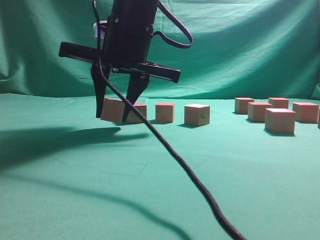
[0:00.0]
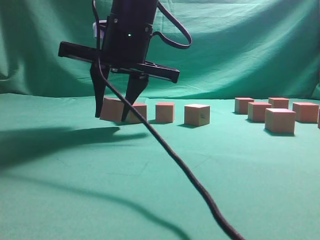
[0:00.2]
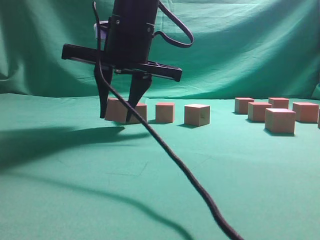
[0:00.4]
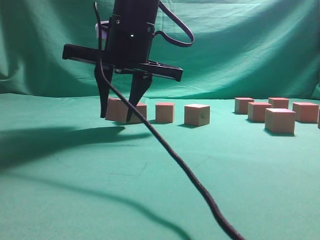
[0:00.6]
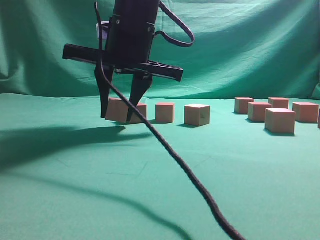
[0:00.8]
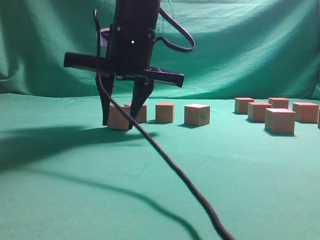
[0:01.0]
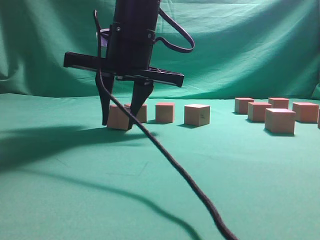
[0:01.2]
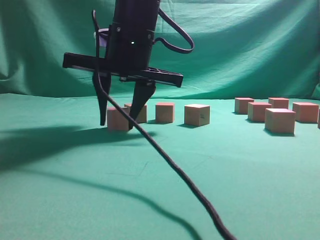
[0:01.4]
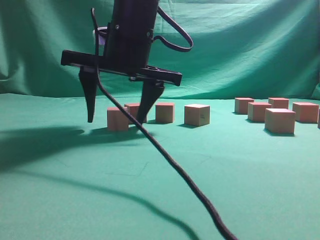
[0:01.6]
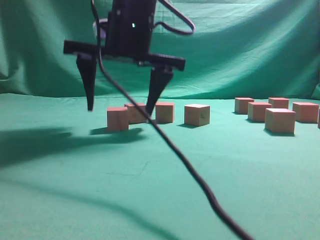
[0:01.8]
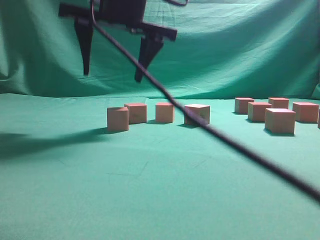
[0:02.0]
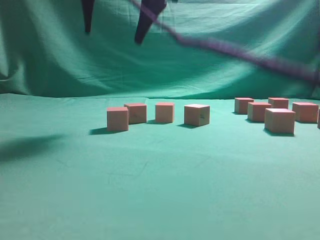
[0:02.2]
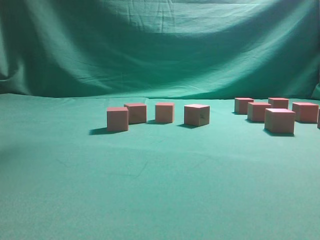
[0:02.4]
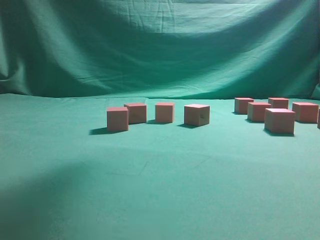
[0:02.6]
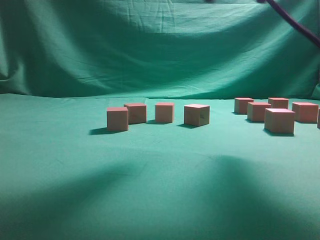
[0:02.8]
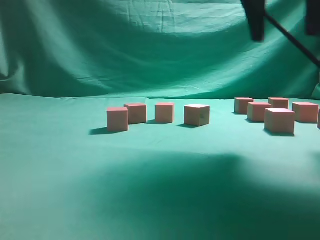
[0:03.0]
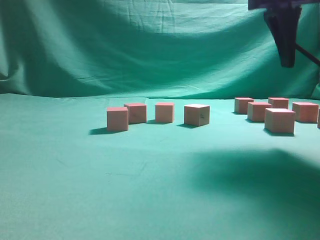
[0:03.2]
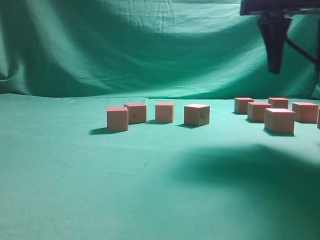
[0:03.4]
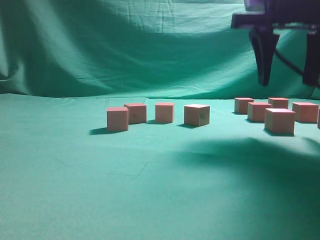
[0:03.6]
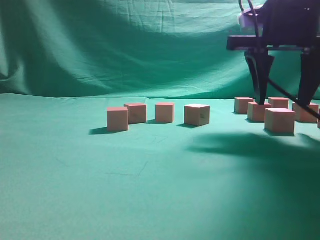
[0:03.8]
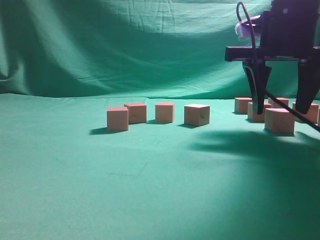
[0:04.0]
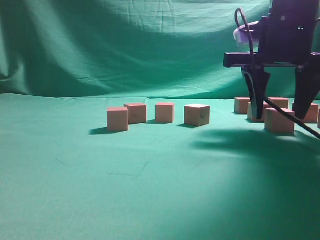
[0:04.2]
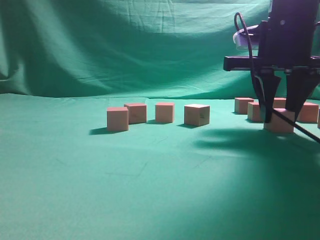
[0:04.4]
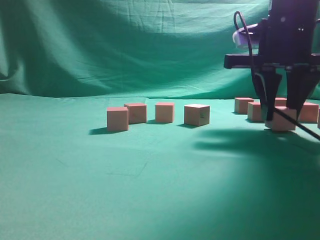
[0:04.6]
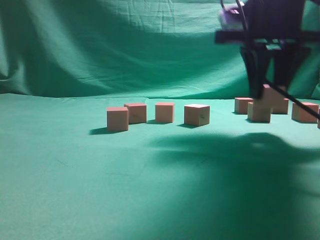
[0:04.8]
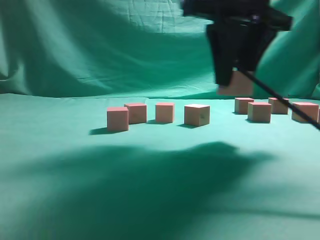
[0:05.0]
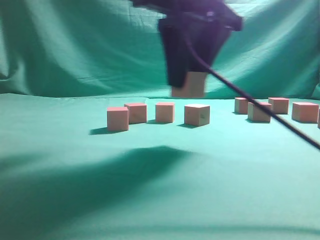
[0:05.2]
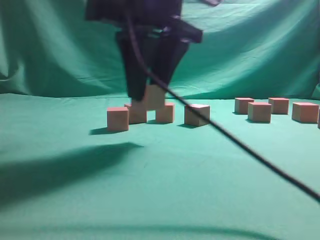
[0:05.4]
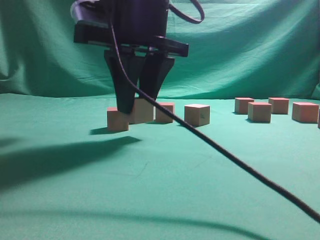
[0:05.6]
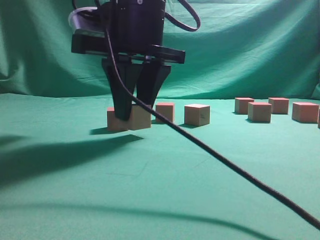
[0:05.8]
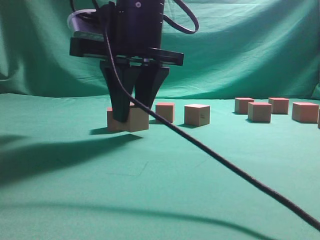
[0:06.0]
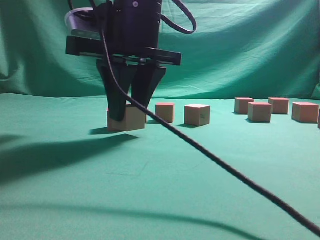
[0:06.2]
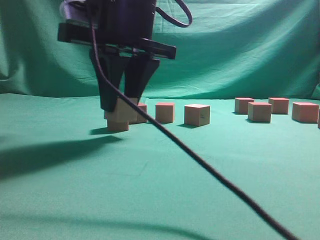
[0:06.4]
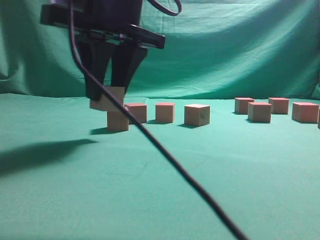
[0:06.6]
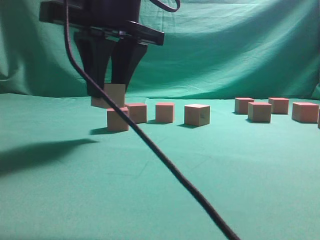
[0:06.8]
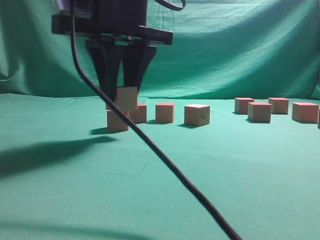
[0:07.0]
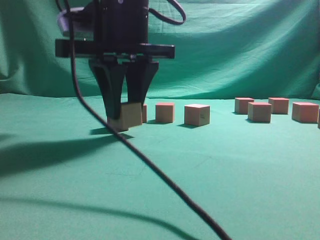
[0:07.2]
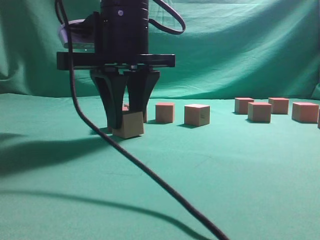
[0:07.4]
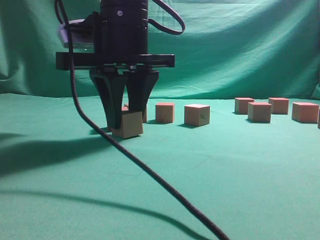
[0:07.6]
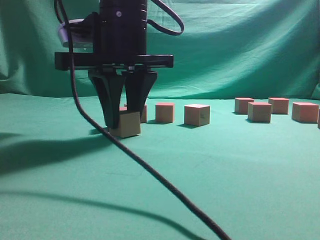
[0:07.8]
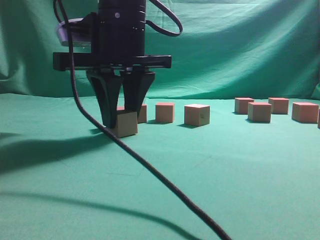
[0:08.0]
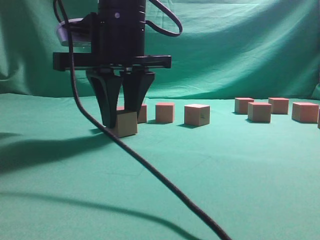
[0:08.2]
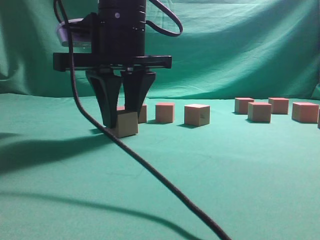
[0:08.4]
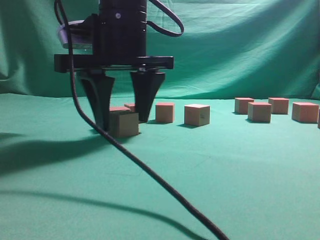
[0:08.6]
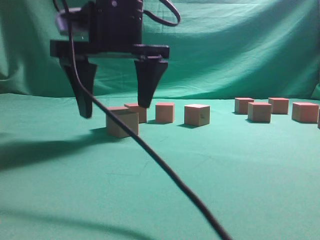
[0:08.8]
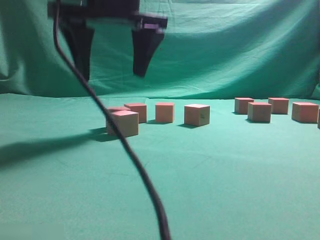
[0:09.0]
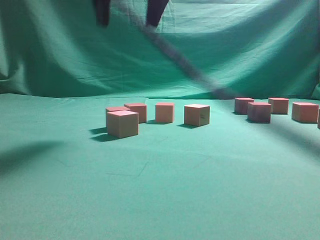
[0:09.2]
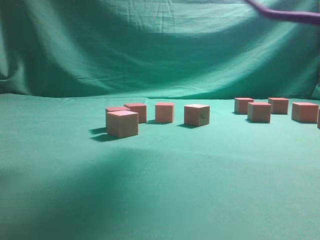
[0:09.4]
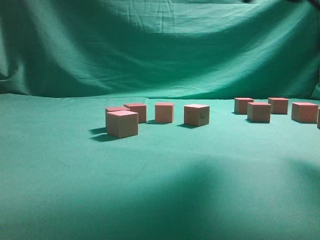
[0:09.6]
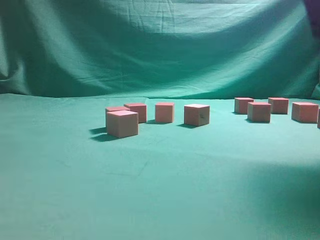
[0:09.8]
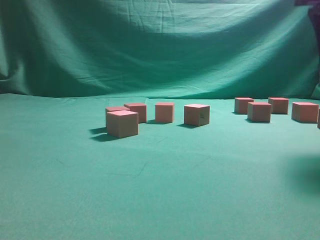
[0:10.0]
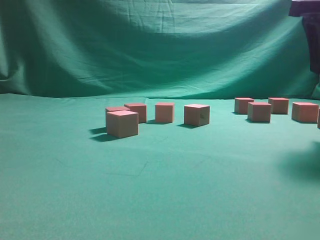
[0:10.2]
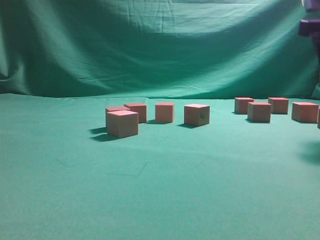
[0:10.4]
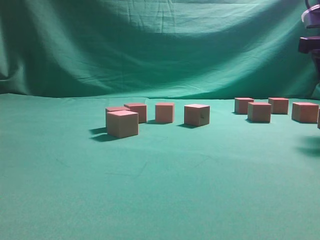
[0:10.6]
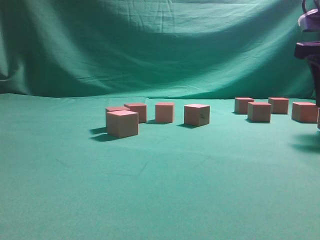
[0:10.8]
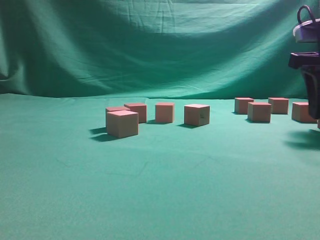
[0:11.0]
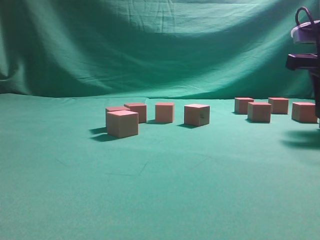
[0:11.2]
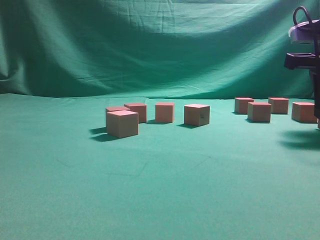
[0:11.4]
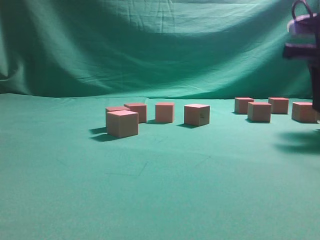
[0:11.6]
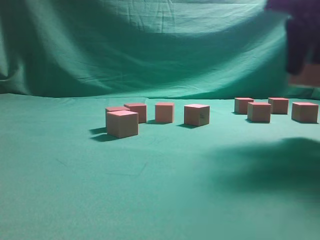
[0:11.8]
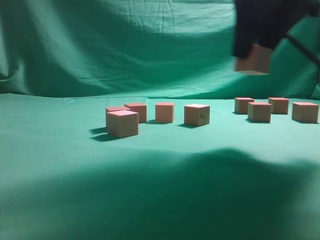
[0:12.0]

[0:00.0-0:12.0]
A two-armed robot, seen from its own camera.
Task of the whole recording: pick up the multiple cubes in two columns one by one and place them in another position on the table.
Step, 0:00.0 to 0:02.0: Place the block at the correct position to assemble the letter S.
Step, 0:02.2 to 0:04.6: Pick up the block on the table.
Step, 0:04.8 to 0:09.0: Place the block at the correct position to assemble the letter S.
Step, 0:09.2 to 0:11.6: Pick up the block on the table.
0:00.0 to 0:01.6: The right gripper opens its fingers.
0:01.6 to 0:03.0: The right gripper is displaced to the right and upward by approximately 20 cm.
0:03.0 to 0:04.4: The right gripper travels downward by about 10 cm, and closes its fingers.
0:04.4 to 0:06.0: The right gripper heads to the left, covering approximately 20 cm.
0:06.0 to 0:07.6: There are only small adjustments of the grippers.
0:07.6 to 0:09.0: The right gripper is displaced upward by about 5 cm, and opens its fingers.
0:09.0 to 0:10.4: The right gripper travels to the right by roughly 30 cm.
0:10.4 to 0:12.0: The right gripper heads to the left, covering approximately 10 cm, and closes up.

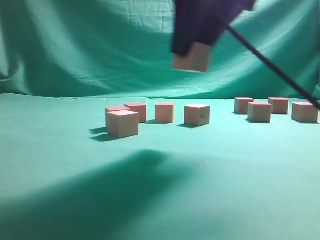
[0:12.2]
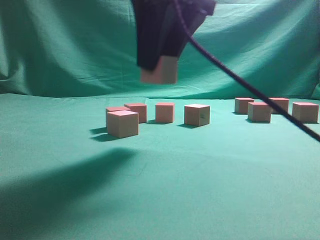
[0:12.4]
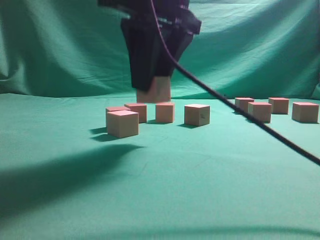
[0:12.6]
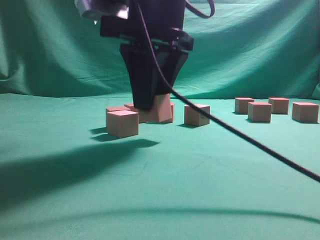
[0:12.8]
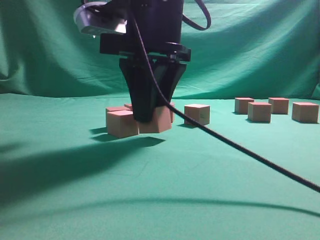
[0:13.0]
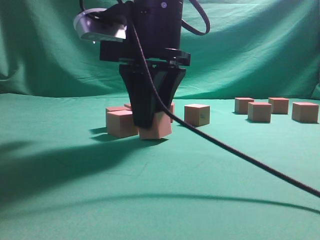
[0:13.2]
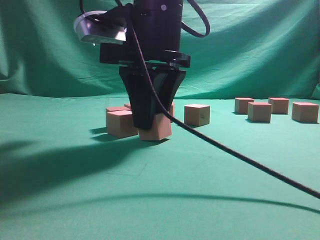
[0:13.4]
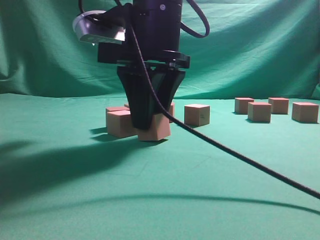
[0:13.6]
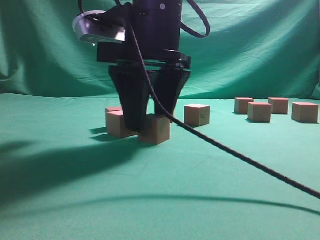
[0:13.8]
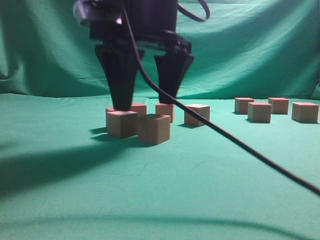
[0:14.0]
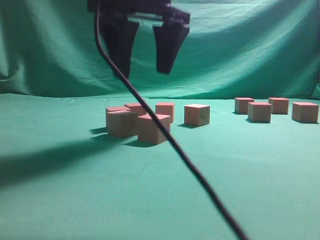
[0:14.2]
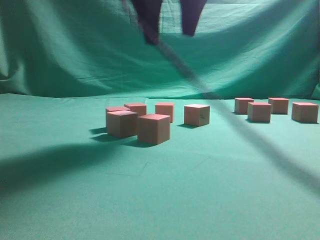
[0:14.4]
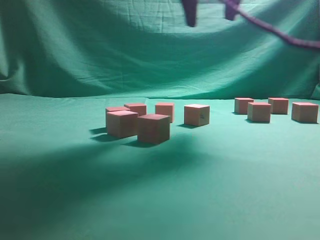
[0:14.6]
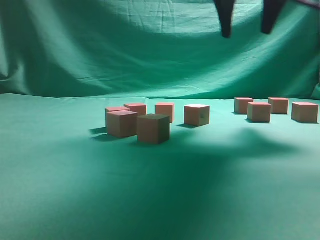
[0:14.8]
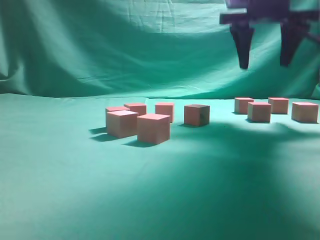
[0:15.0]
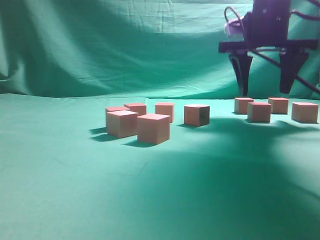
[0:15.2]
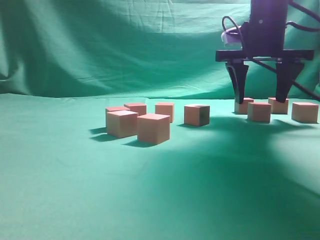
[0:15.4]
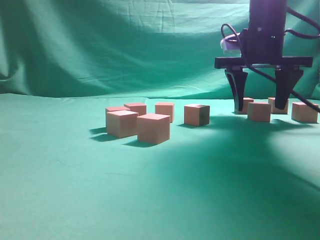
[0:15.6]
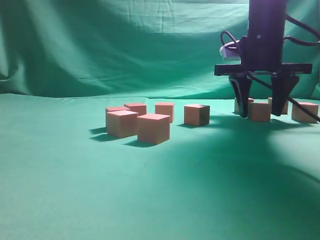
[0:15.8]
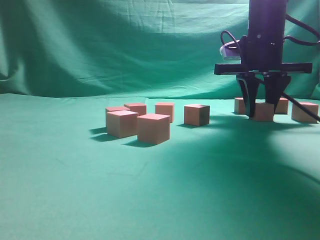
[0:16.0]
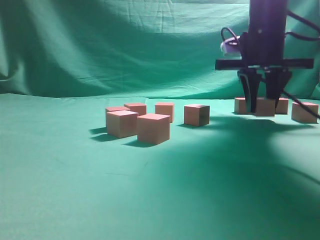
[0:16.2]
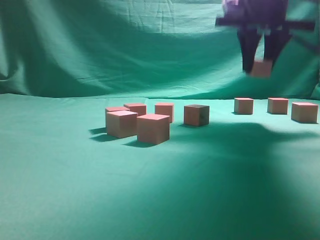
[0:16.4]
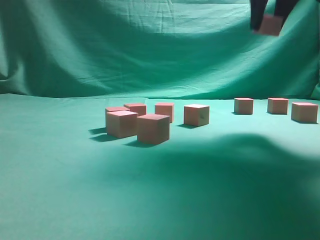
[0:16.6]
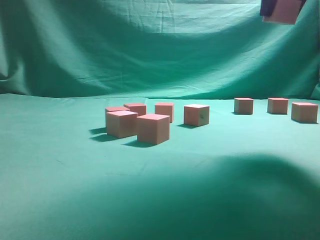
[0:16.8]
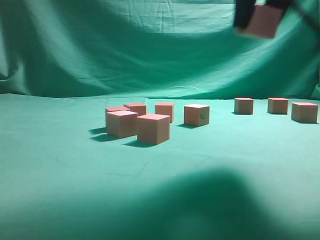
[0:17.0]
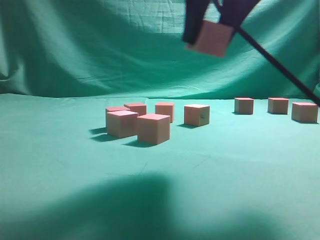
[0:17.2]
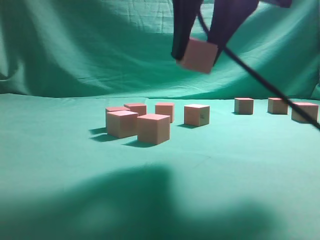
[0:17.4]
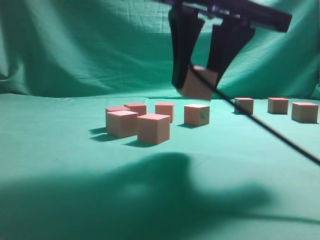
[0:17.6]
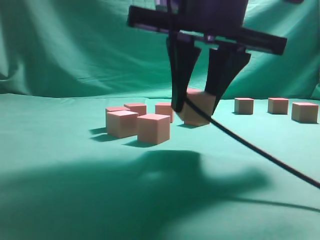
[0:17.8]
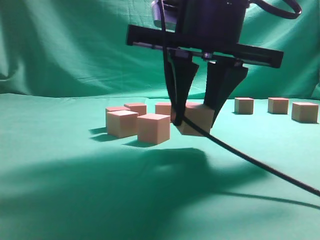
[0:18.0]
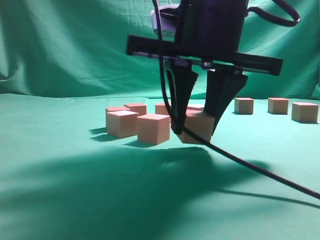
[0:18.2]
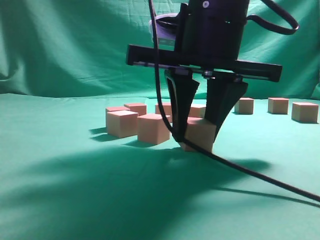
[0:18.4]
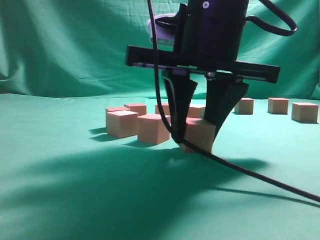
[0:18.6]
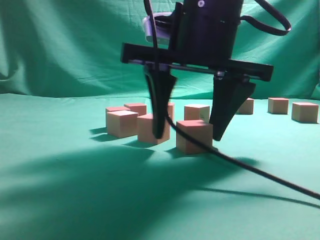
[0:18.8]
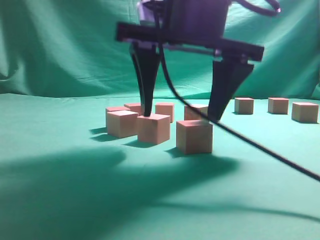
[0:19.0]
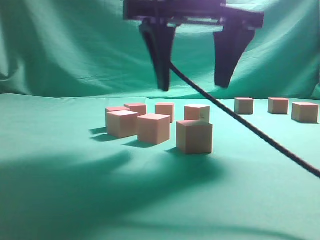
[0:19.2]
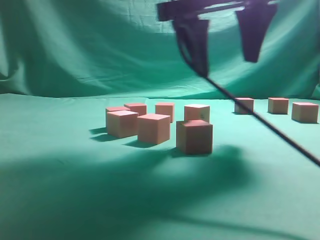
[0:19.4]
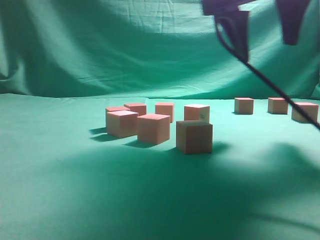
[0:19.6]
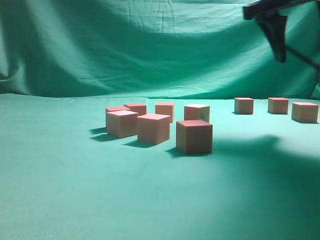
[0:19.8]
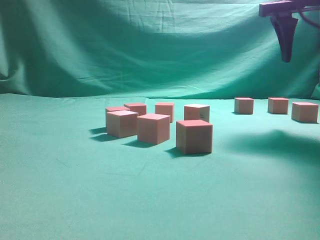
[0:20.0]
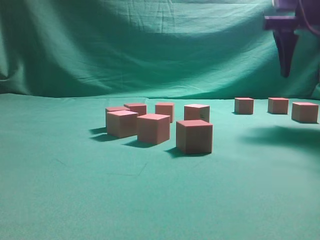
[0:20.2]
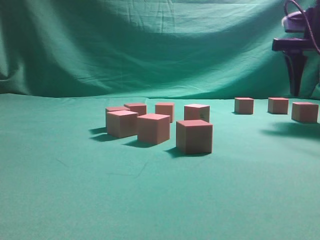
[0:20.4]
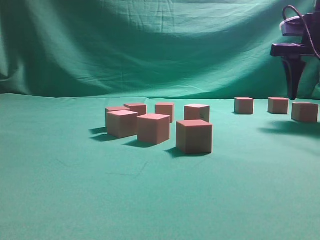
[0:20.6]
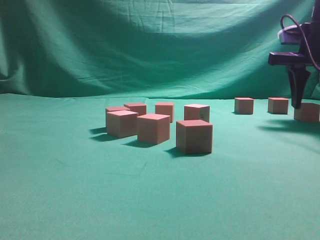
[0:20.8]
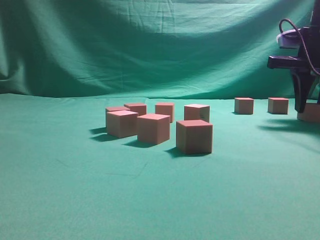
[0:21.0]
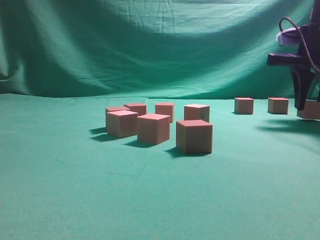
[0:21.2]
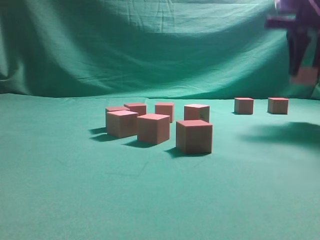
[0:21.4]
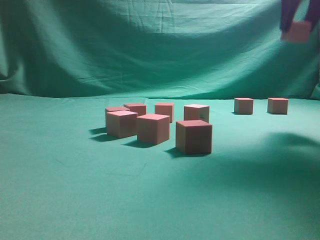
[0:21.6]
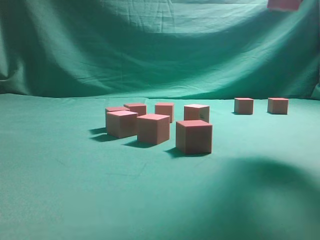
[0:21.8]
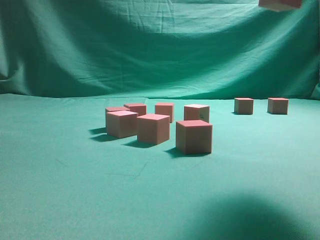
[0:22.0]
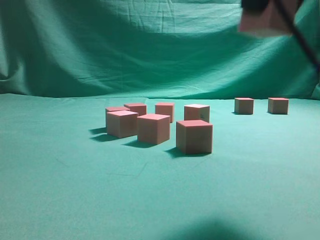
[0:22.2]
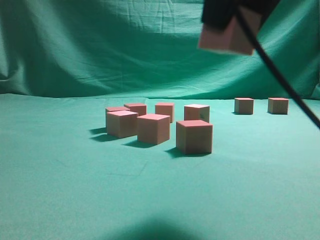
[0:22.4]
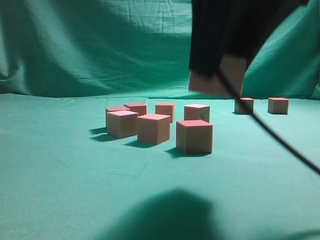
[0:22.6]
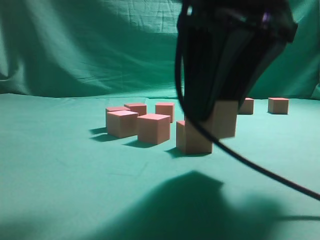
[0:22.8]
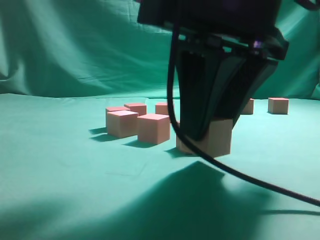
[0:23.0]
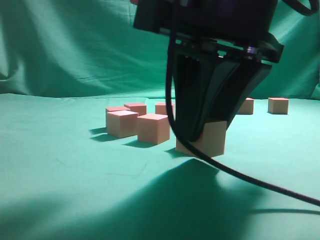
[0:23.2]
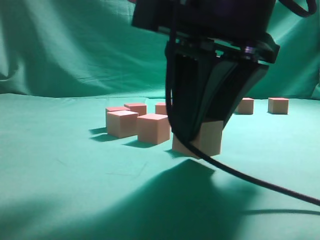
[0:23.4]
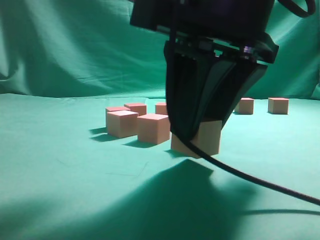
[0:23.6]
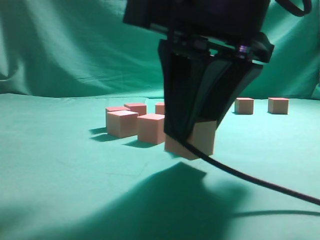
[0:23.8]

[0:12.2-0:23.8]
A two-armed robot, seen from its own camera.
Task of the whole recording: pick up the multiple cubes in two columns one by one and place them in another position on the table.
Step, 0:12.2 to 0:14.2: Place the block at the correct position to assemble the letter S.
Step, 0:14.4 to 0:16.4: Pick up the block on the table.
Step, 0:16.6 to 0:19.2: Place the block at the correct position to assemble the letter S.
Step, 0:19.4 to 0:21.4: Pick up the block on the table.
0:12.2 to 0:13.6: The right gripper travels to the left and downward by approximately 10 cm.
0:13.6 to 0:15.0: The right gripper travels to the right, forward and upward by about 20 cm, and opens.
0:15.0 to 0:16.6: The right gripper moves roughly 5 cm, and closes its fingers.
0:16.6 to 0:18.0: The right gripper shifts about 20 cm to the left, downward and backward.
0:18.0 to 0:19.4: The right gripper is displaced upward by roughly 5 cm, and opens its fingers.
0:19.4 to 0:21.0: The right gripper shifts some 25 cm to the right and forward, and closes.
0:21.0 to 0:22.4: The right gripper travels backward and to the left by approximately 30 cm.
0:22.4 to 0:23.8: The right gripper heads downward, covering some 10 cm.
